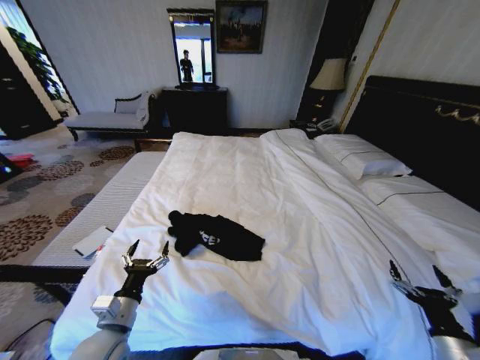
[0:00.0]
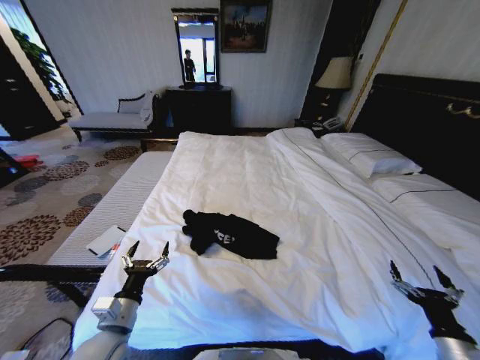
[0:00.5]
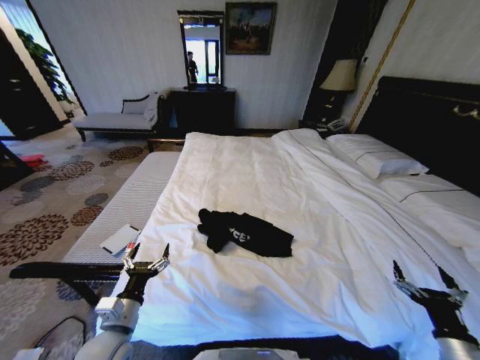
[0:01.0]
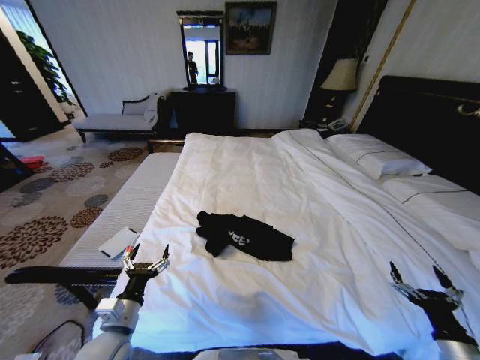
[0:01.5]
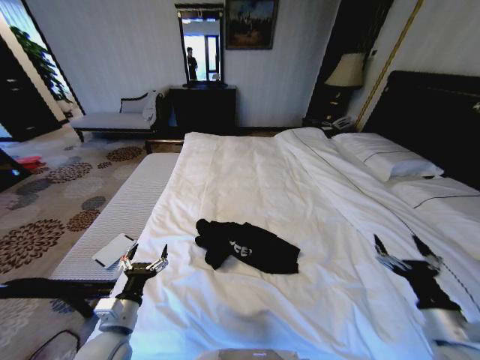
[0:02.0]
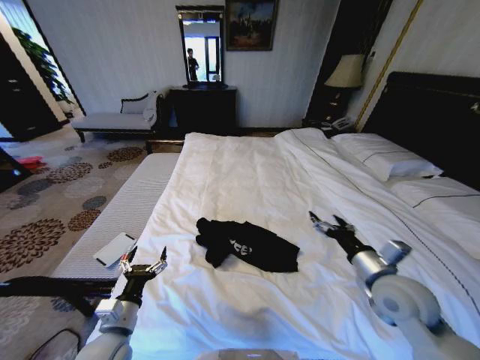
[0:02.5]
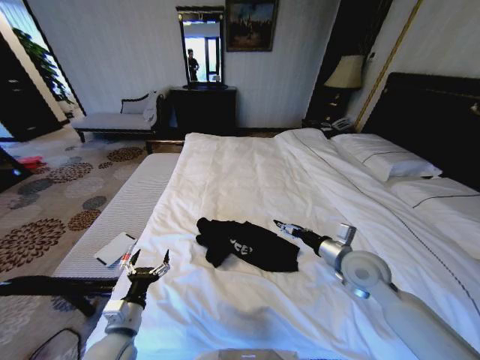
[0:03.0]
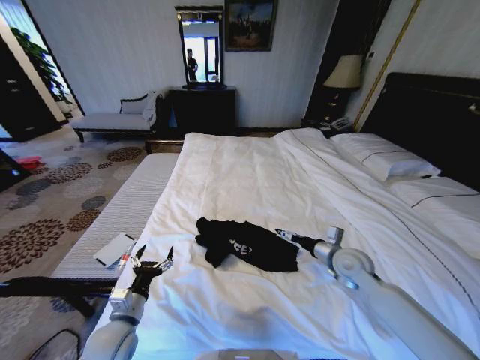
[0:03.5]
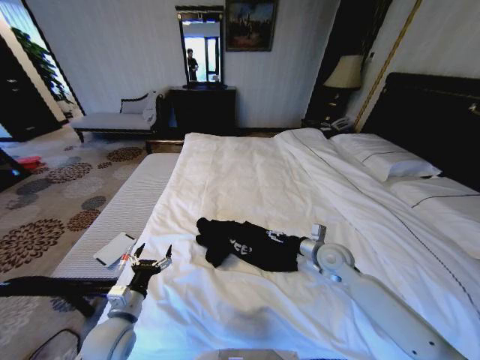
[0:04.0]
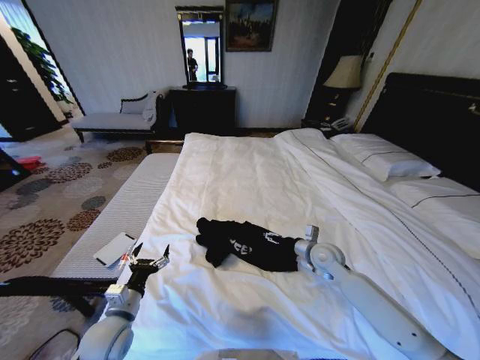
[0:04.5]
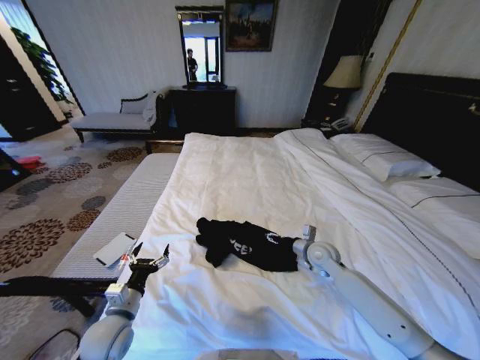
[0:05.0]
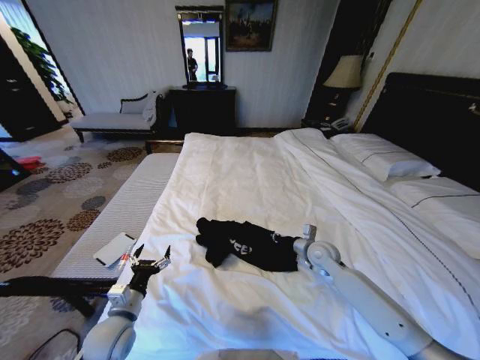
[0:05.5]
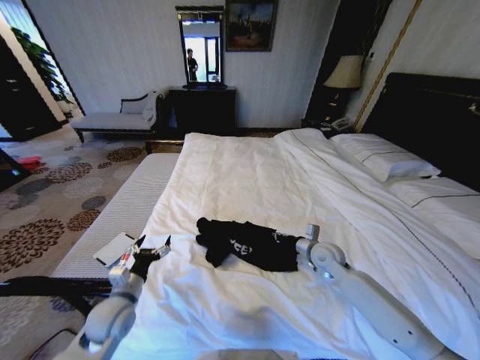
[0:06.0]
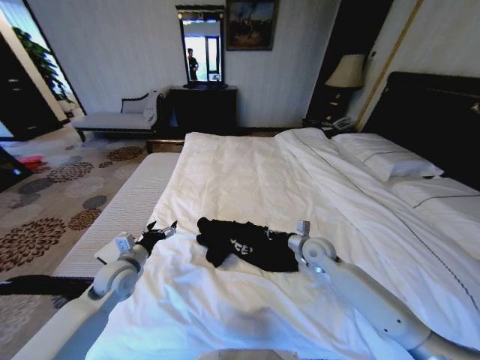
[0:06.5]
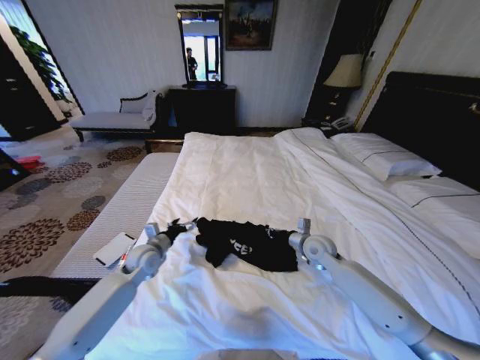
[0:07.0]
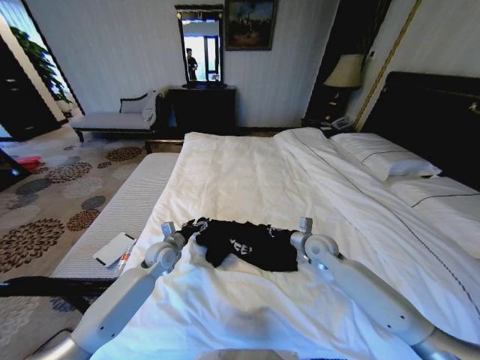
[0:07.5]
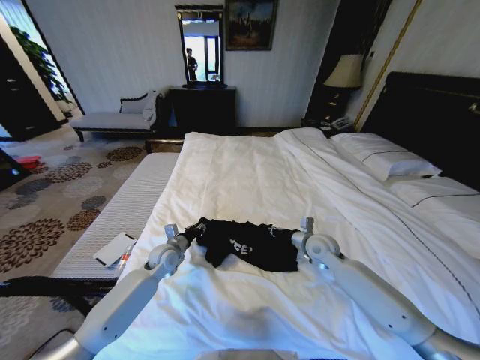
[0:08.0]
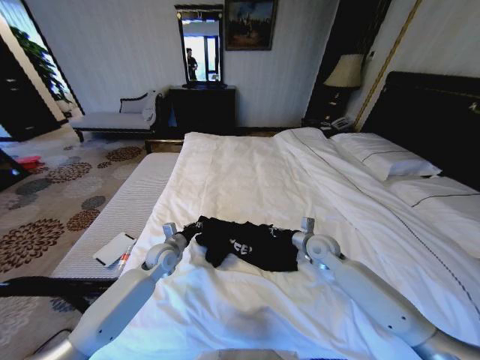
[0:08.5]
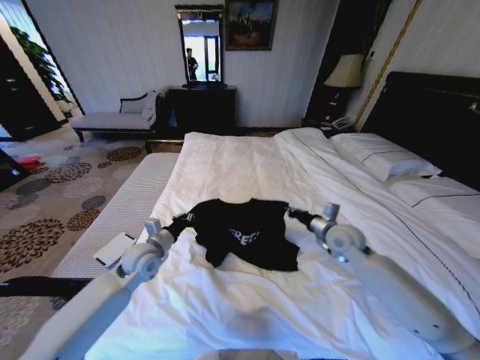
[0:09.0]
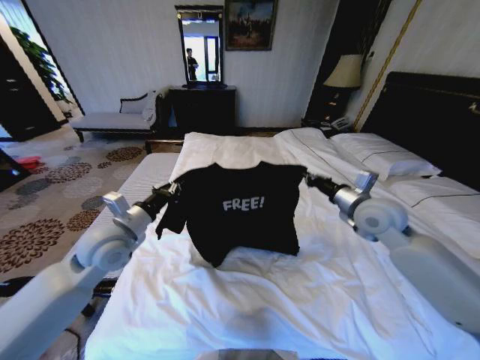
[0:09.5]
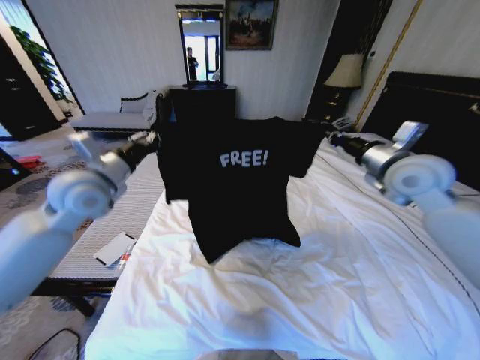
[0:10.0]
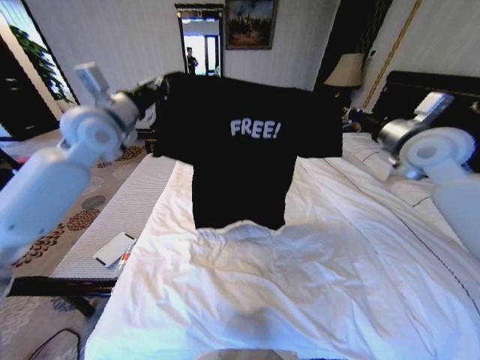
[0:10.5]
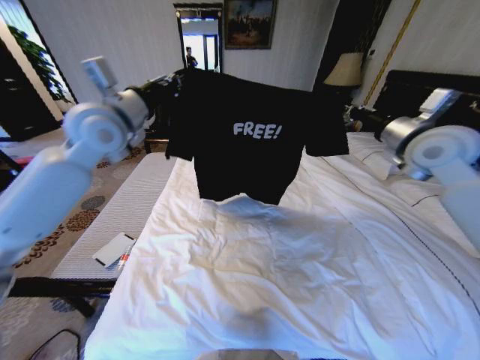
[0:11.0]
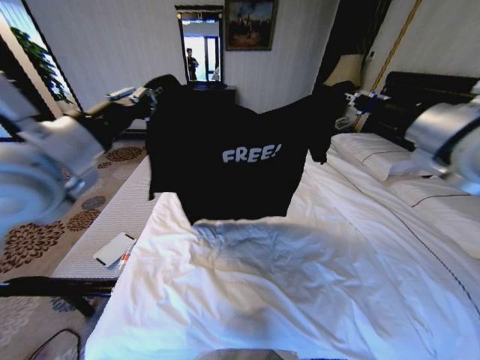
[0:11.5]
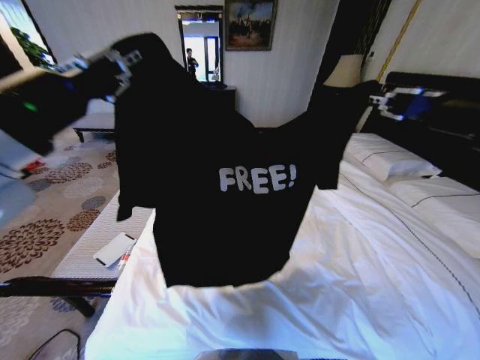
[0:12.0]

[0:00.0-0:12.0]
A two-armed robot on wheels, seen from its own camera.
Task of the whole recording: Fold the clothes on the bed.
0:00.0 to 0:02.0: The right gripper heads upward, covering approximately 5 cm.
0:02.0 to 0:04.0: The right gripper heads forward and to the left, covering some 30 cm.
0:04.0 to 0:06.0: The right gripper closes its fingers; the left gripper changes place by roughly 5 cm.
0:06.0 to 0:08.0: The left gripper moves forward and to the right, about 20 cm, and closes its fingers.
0:08.0 to 0:10.0: The grippers both shift upward by roughly 30 cm.
0:10.0 to 0:12.0: The two grippers go some 25 cm backward and upward.

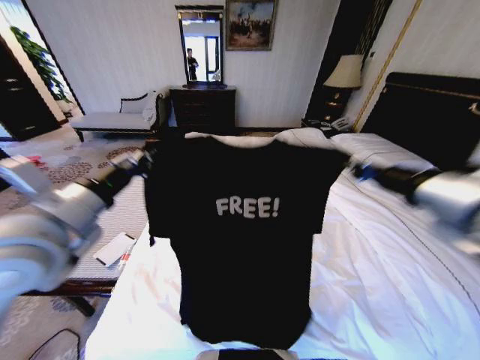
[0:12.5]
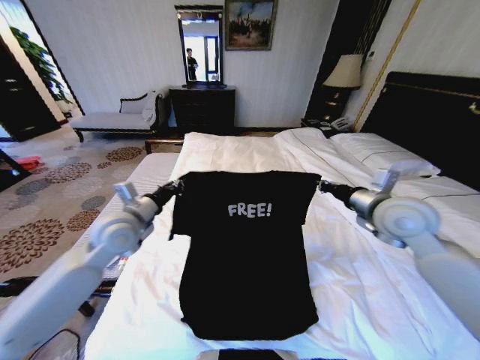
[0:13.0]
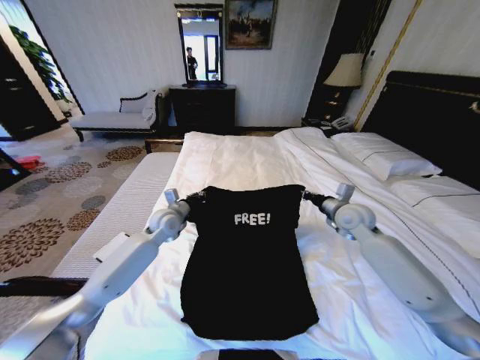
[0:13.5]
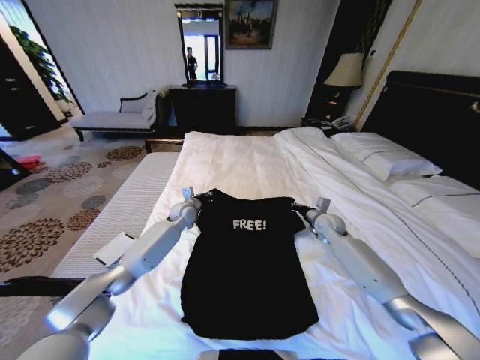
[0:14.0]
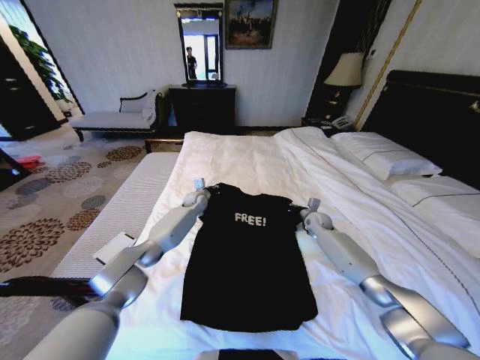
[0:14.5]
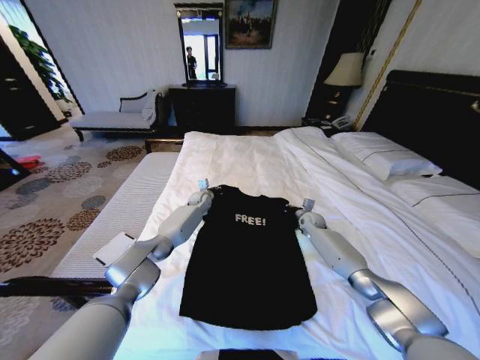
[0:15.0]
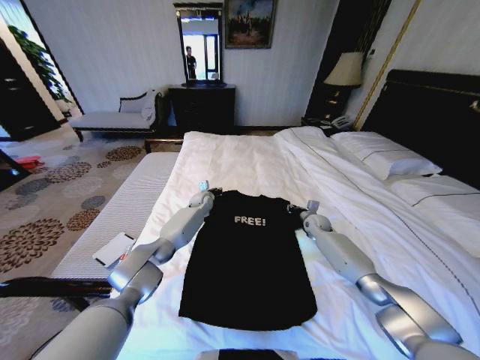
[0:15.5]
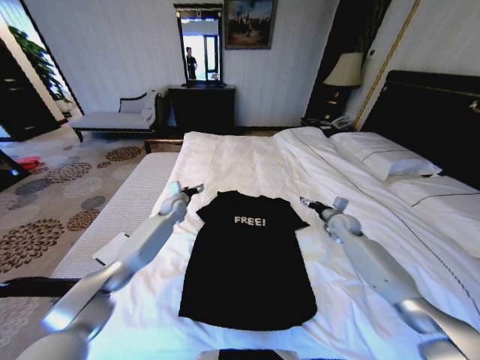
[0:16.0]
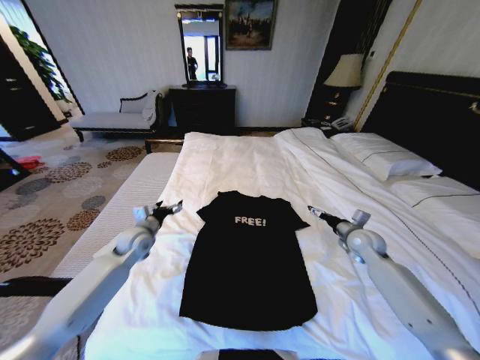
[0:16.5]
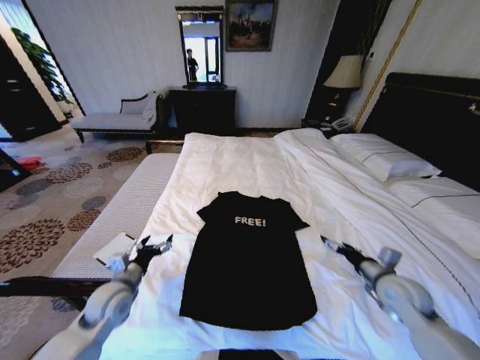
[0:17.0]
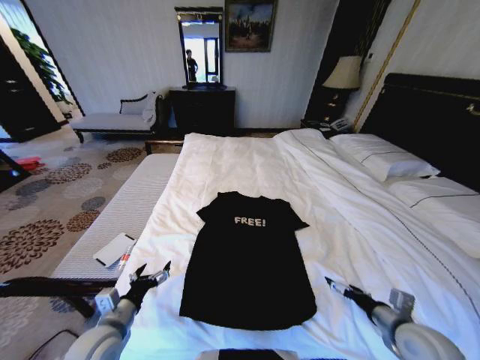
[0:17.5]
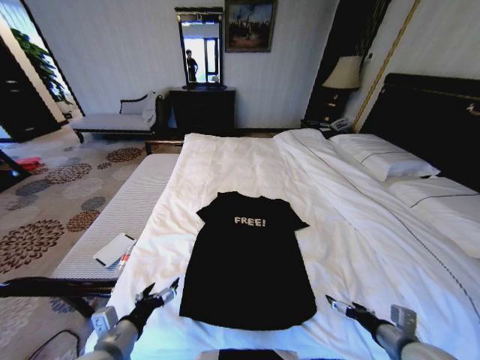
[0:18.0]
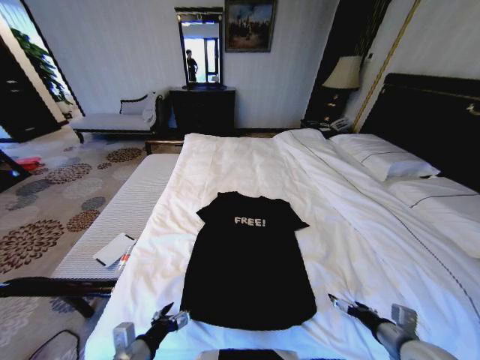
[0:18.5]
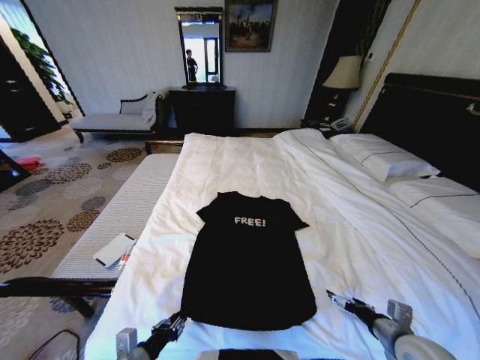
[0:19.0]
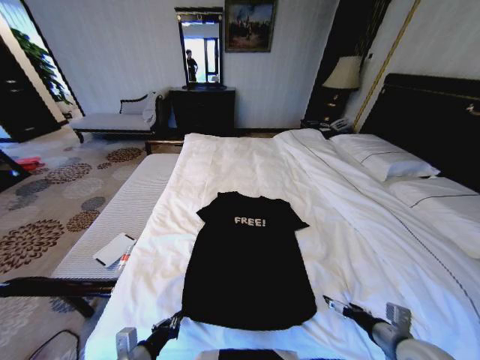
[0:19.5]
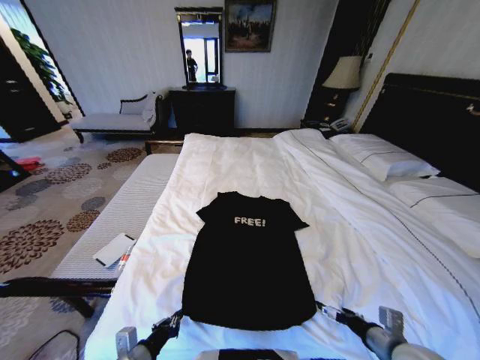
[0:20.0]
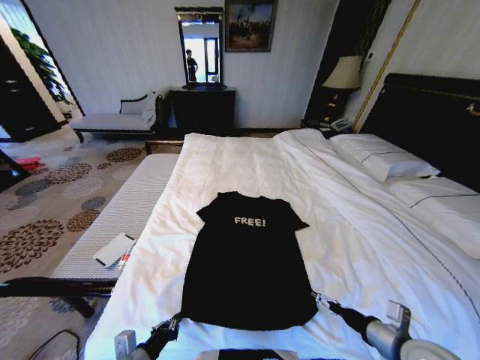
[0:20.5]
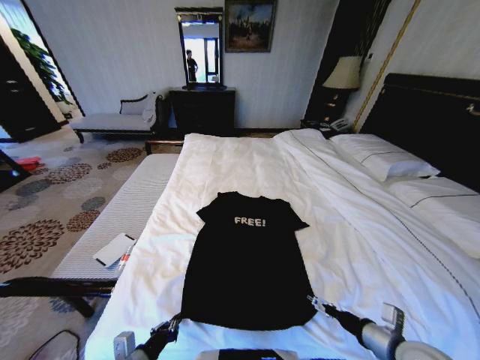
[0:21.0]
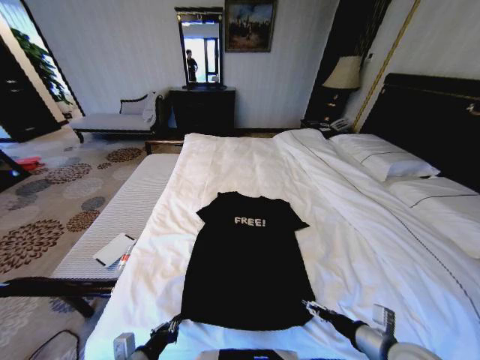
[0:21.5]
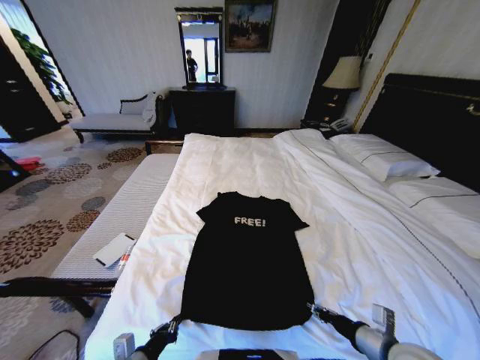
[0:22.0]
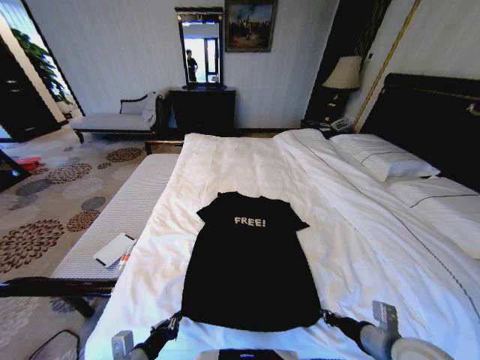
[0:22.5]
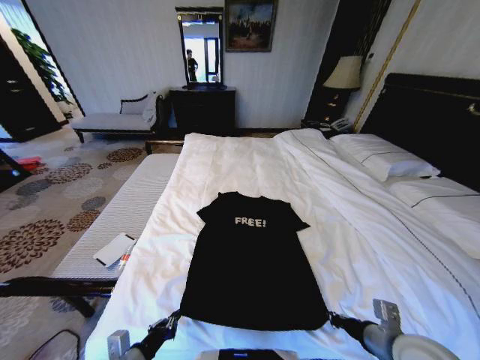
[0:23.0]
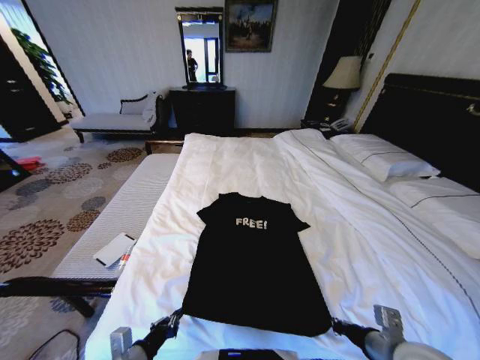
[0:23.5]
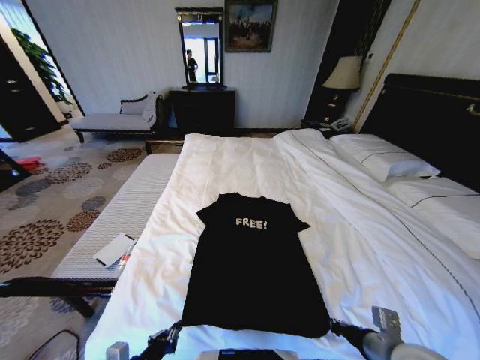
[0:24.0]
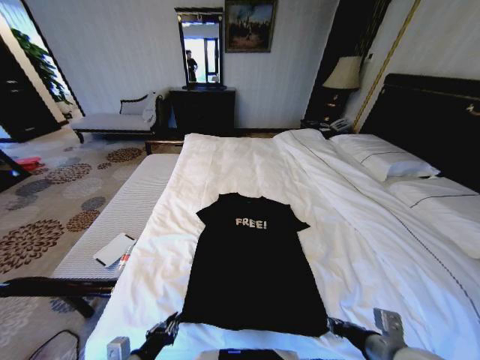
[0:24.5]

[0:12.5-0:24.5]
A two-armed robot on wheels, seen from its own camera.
Task of the whole recording: Fold the clothes on the bed.
0:12.5 to 0:14.5: The left gripper shifts approximately 50 cm forward and downward. Meanwhile the right gripper heads downward and forward, covering roughly 50 cm.
0:14.5 to 0:16.5: The right gripper is displaced backward, to the right and upward by approximately 15 cm, and opens up, while the left gripper heads backward and to the left, covering about 25 cm, and opens its fingers.
0:16.5 to 0:18.5: Both grippers move backward, some 30 cm.
0:18.5 to 0:20.5: The left gripper closes its fingers. Meanwhile the right gripper moves about 5 cm.
0:20.5 to 0:22.5: The right gripper closes.
0:22.5 to 0:24.5: The grippers make only small movements.

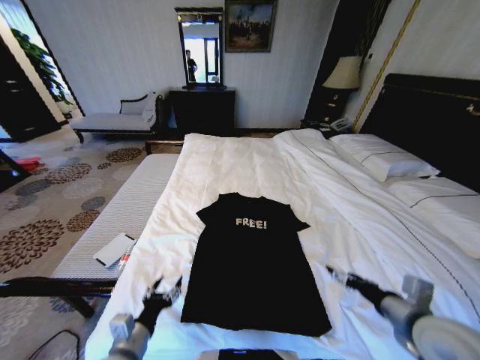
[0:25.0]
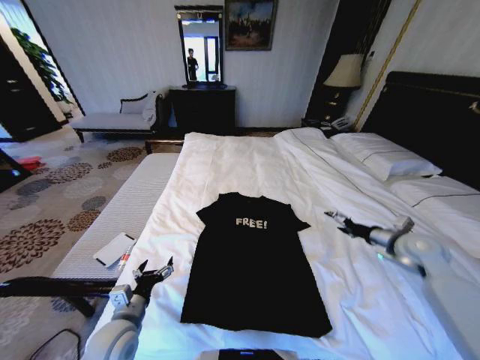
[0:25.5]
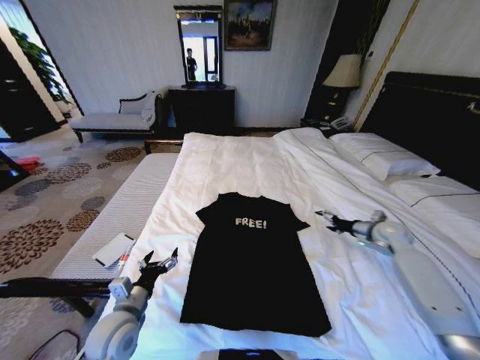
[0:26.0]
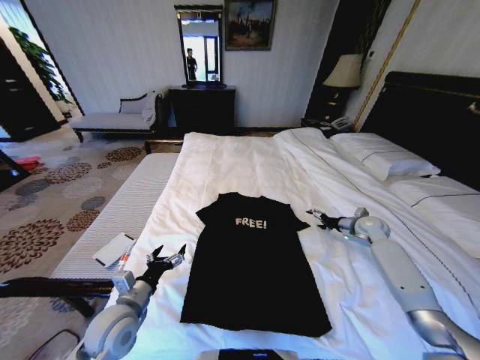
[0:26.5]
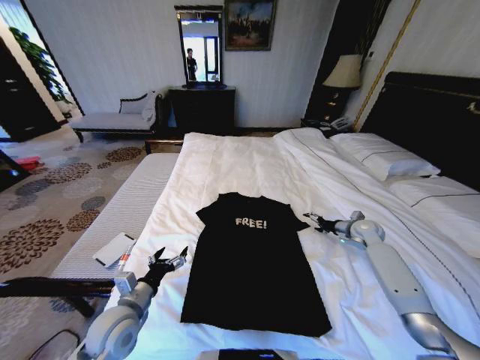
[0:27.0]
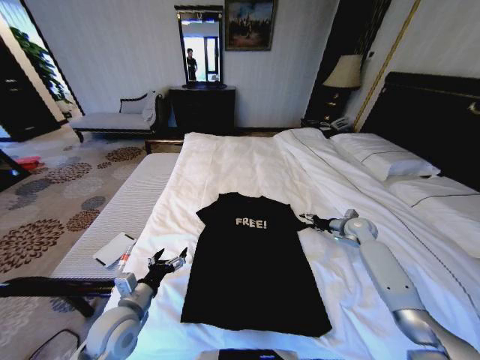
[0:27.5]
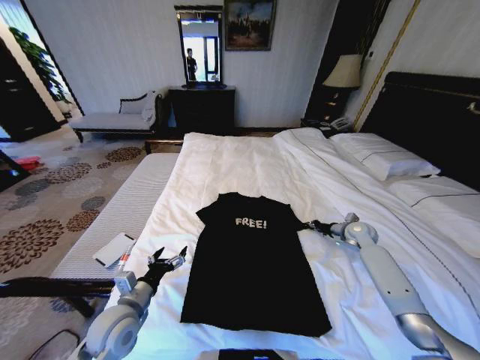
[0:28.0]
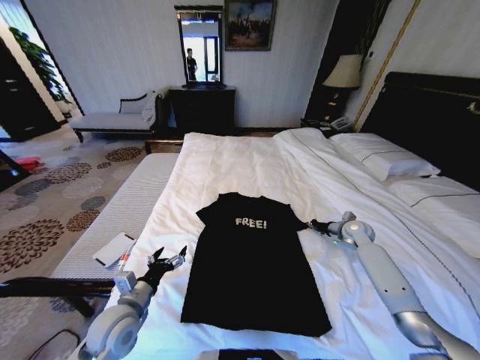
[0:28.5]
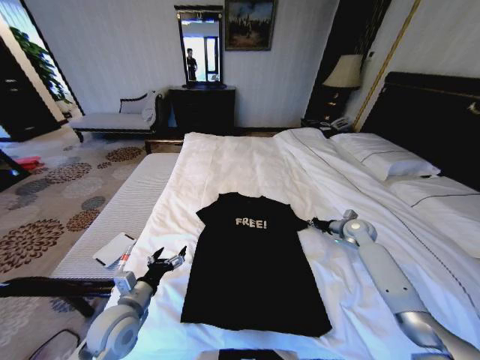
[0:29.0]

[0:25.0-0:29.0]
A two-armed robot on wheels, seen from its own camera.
Task of the whole recording: Fold the clothes on the bed.
0:25.0 to 0:27.0: The left gripper goes some 10 cm forward, while the right gripper heads forward, covering some 30 cm.
0:27.0 to 0:29.0: The right gripper closes.
